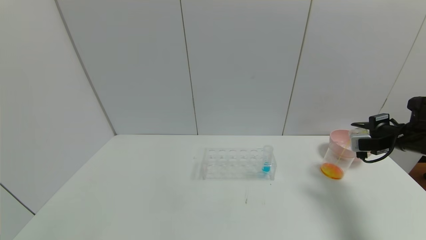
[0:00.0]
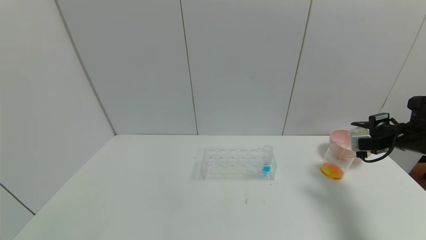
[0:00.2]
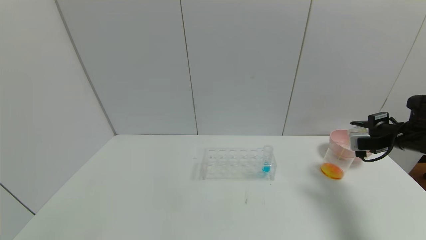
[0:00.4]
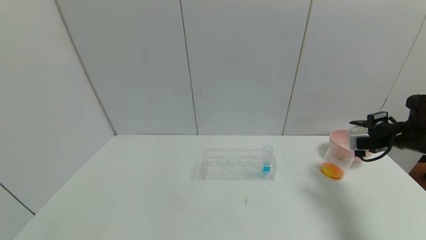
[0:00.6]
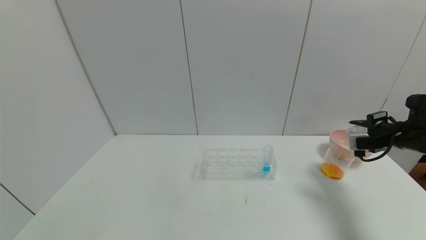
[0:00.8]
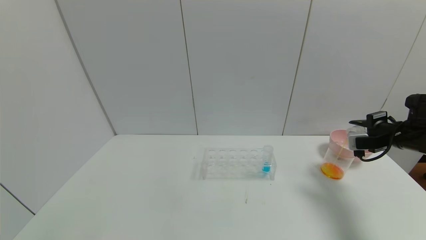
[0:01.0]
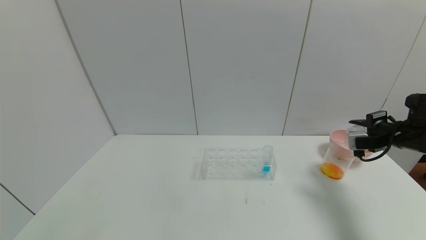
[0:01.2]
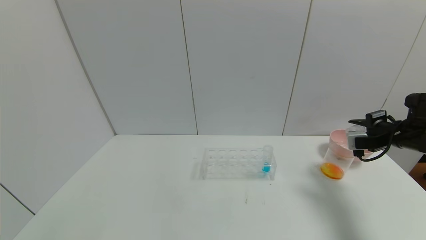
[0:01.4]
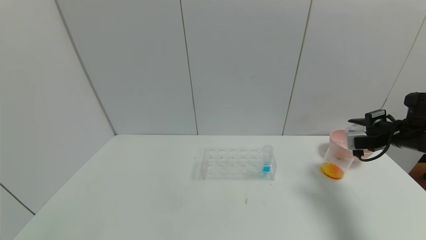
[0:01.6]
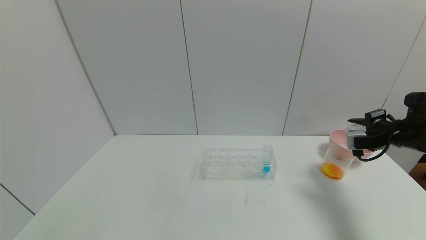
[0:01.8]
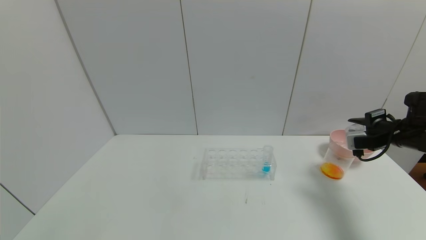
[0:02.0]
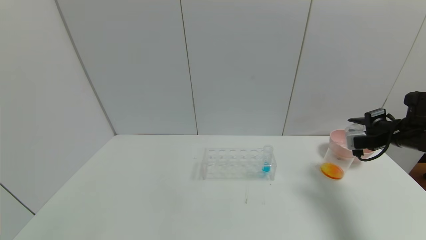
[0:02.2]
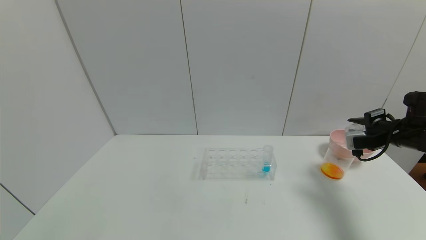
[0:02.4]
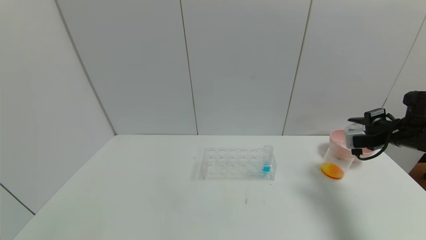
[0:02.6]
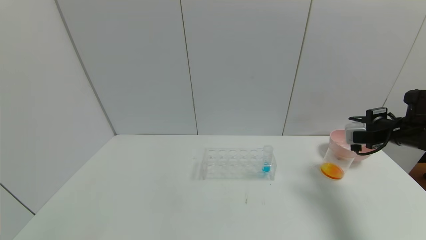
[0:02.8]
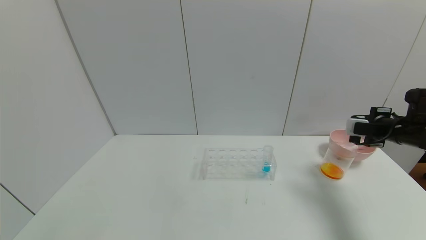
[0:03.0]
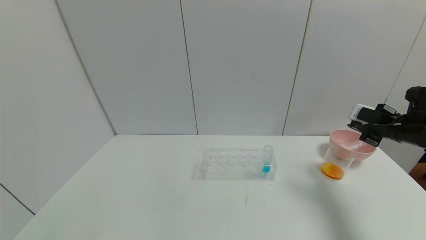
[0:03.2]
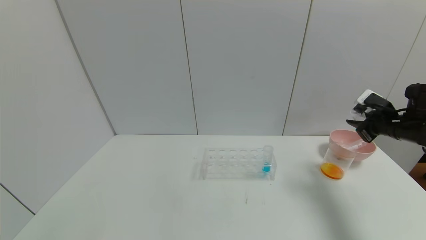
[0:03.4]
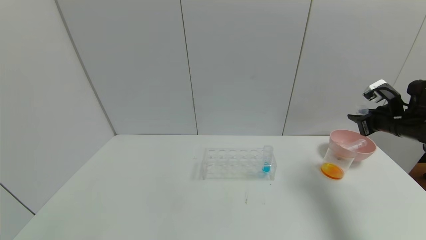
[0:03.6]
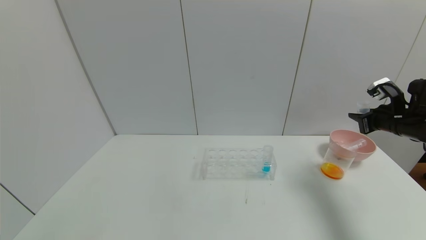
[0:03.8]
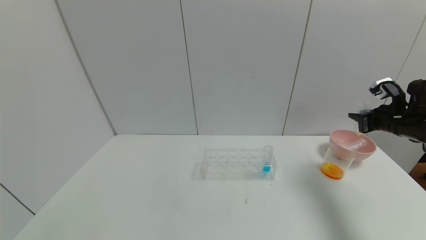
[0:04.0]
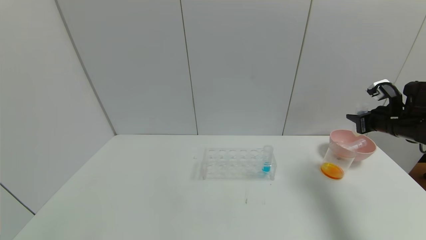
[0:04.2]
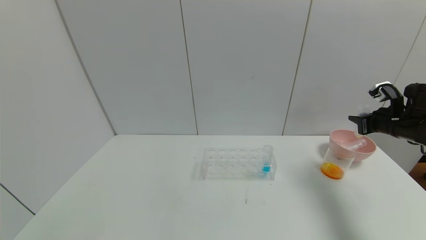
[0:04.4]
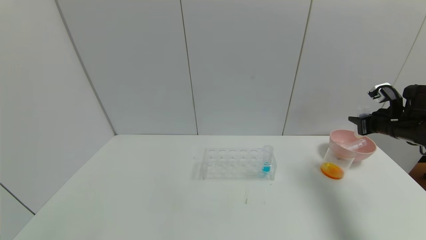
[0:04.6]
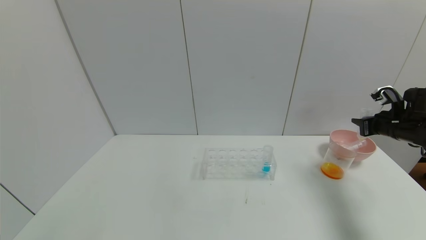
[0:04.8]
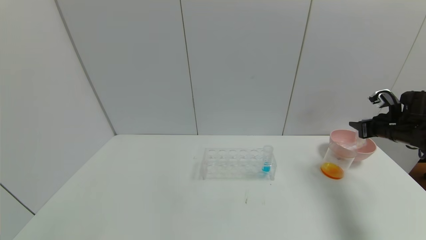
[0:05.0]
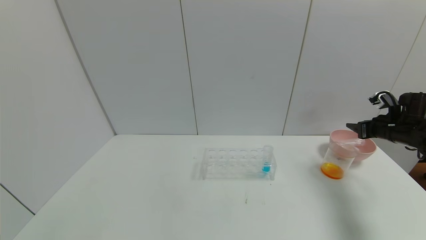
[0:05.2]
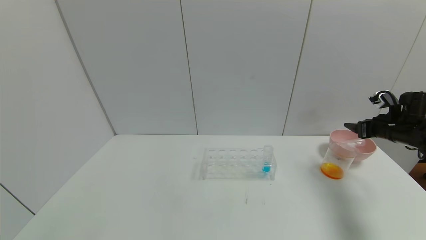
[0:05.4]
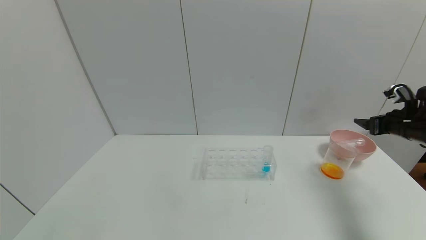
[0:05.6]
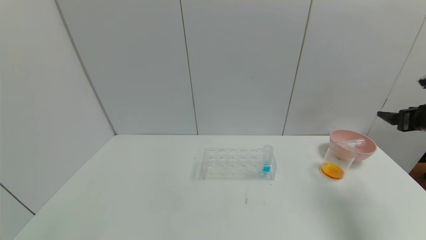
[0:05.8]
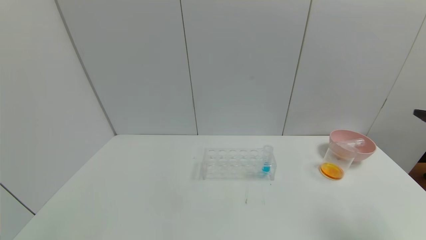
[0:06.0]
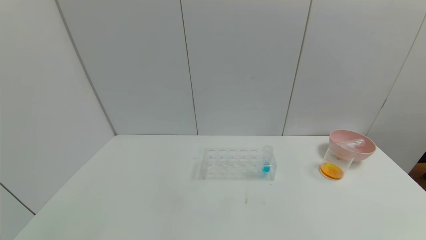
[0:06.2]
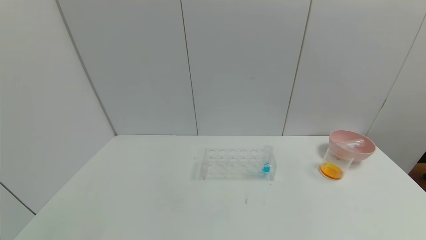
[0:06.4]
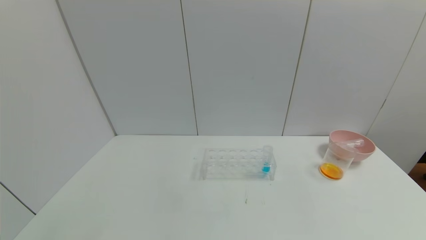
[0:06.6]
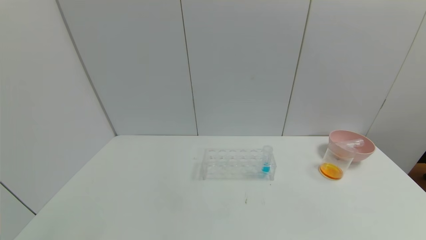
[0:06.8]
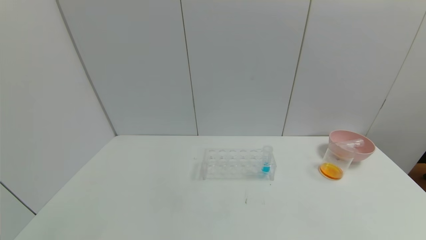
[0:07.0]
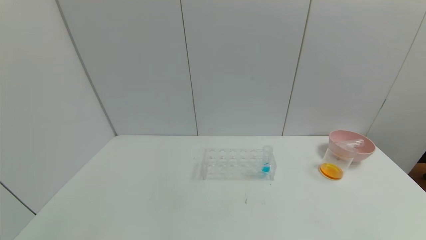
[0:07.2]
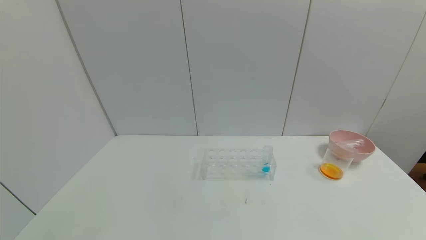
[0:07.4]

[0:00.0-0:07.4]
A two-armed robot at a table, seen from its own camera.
Task of the whole recording: pick up the test tube with yellow pigment and the test tube with red pigment by grippers and pour them into the beaker.
Step, 0:00.0 to 0:04.4: Pour the yellow reagent into the graduated cylinder with right gripper.
Step, 0:04.6 to 0:05.8: Place the test tube into the bowl with right gripper.
0:00.0 to 0:01.4: Both grippers stay about where they are.
0:04.4 to 0:06.0: The right gripper is displaced backward and upward by about 20 cm, and opens its fingers.
0:06.0 to 0:07.4: The right gripper shifts some 30 cm backward and downward.
